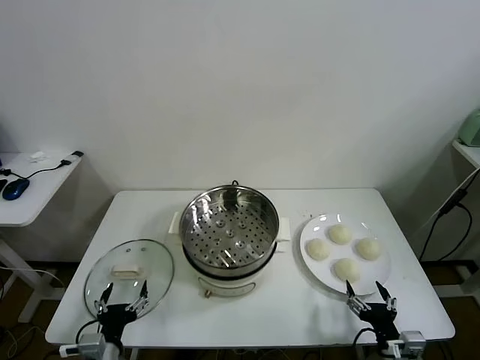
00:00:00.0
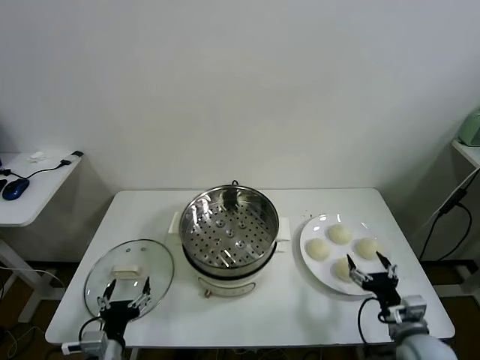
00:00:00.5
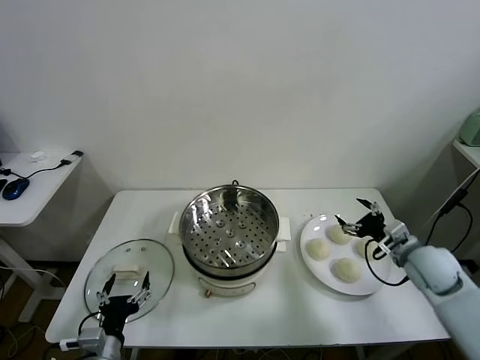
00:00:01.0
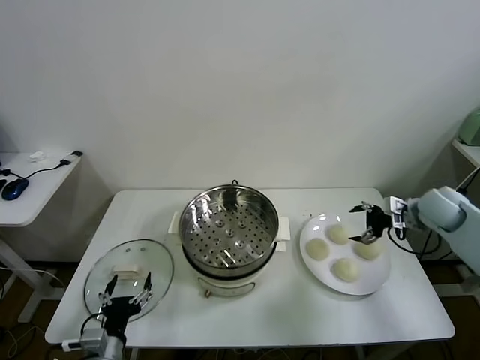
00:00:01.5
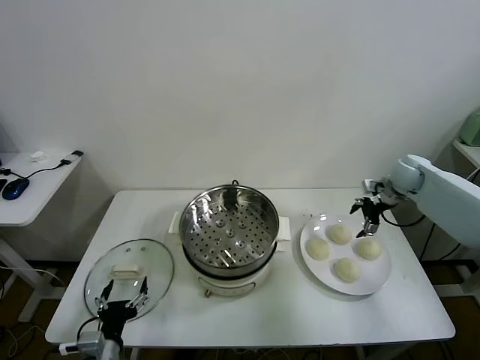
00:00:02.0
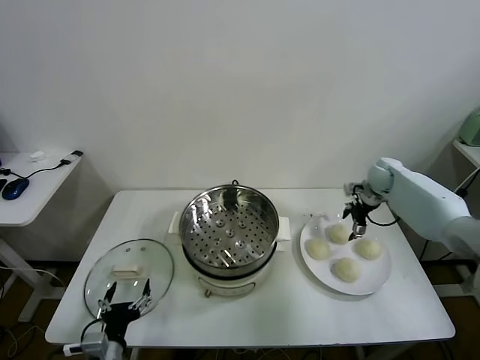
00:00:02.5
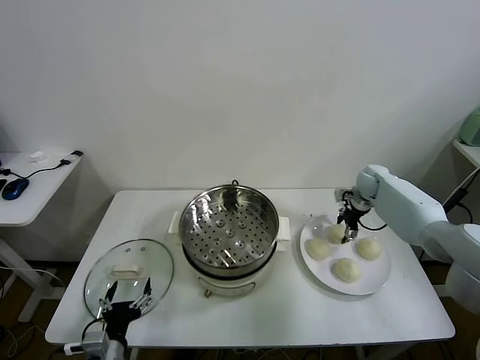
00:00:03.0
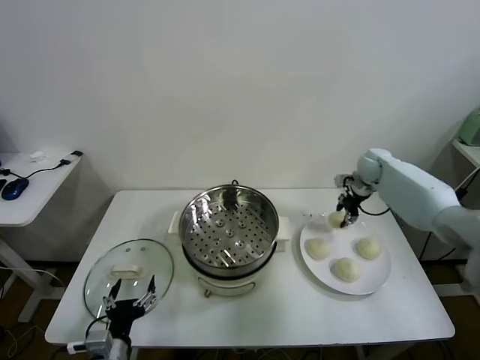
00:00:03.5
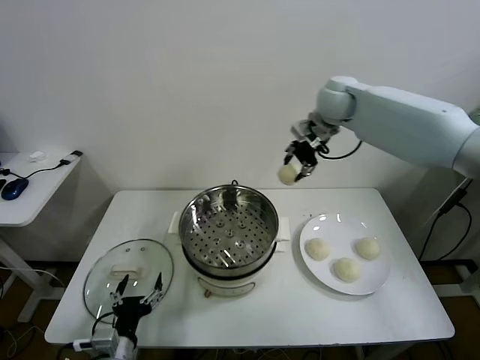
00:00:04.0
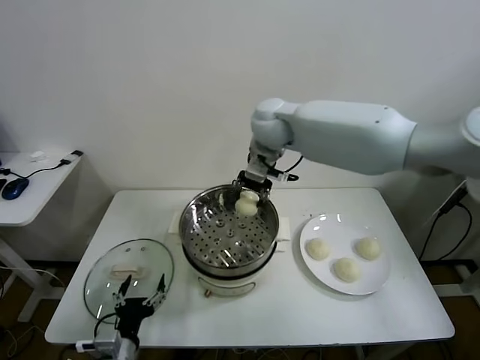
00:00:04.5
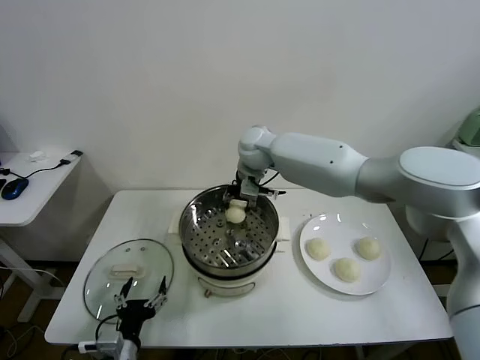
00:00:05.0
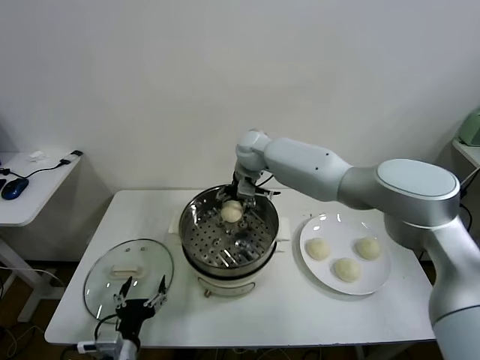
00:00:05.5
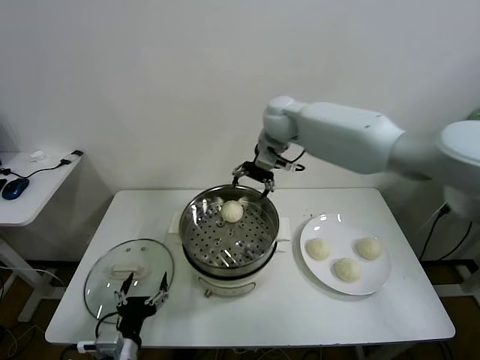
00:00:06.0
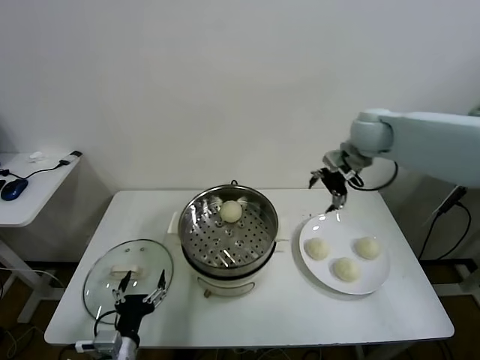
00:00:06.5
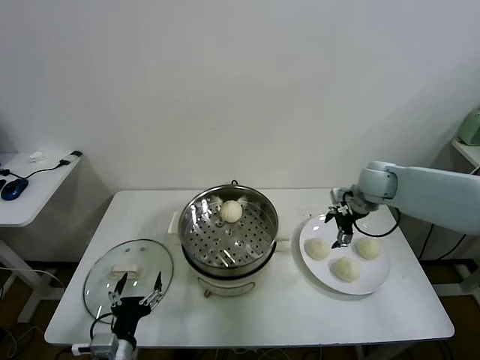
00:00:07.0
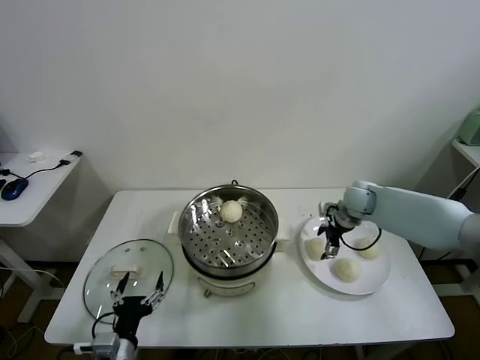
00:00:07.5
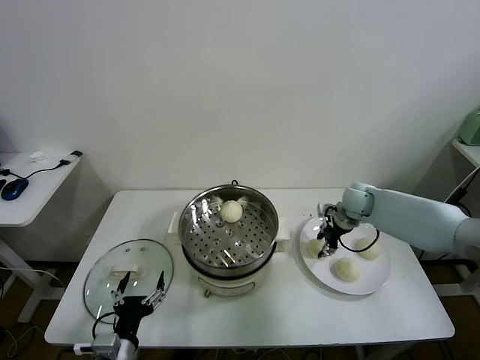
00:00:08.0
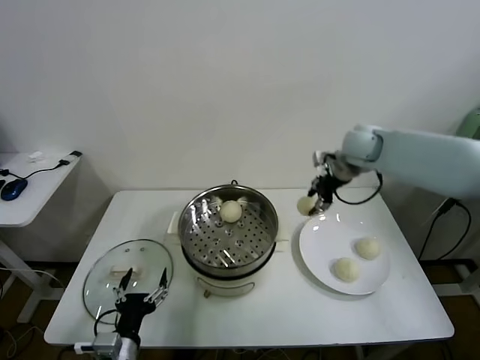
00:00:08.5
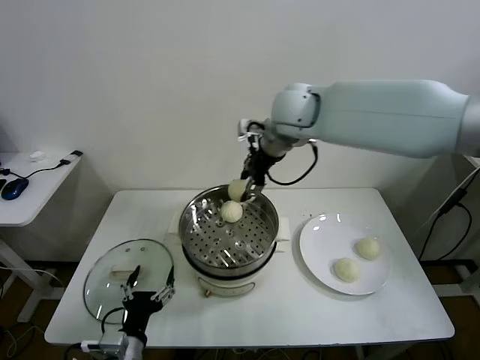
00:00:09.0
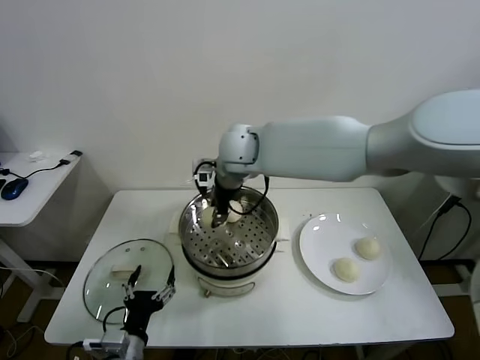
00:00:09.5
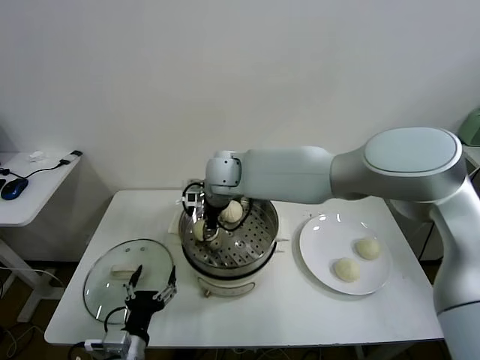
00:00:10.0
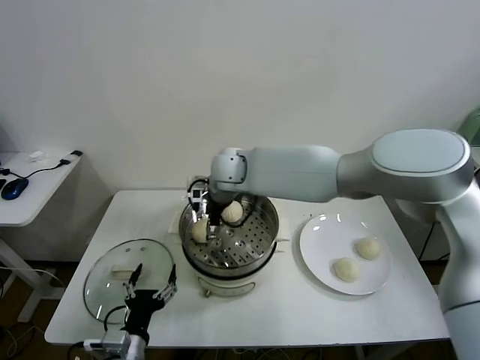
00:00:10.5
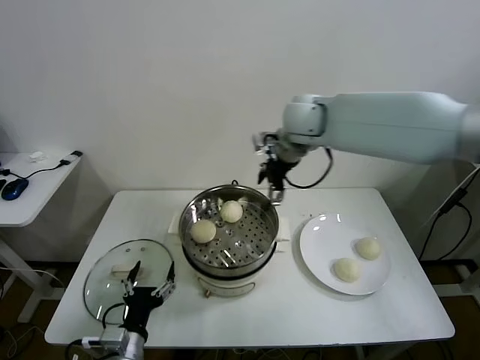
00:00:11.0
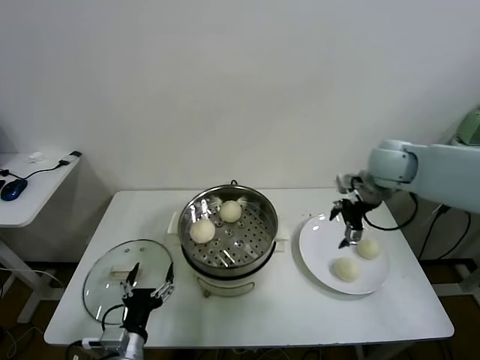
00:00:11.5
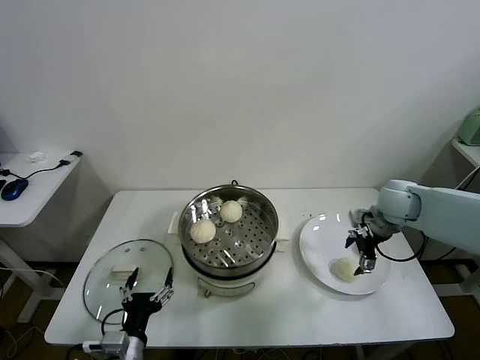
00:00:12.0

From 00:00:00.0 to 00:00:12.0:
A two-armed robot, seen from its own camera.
Task of the whole recording: take steamed baozi put them in steamer.
Step, from 00:00:00.0 to 00:00:02.5: Grasp the baozi in the plate with right gripper.
Step, from 00:00:03.5 to 00:00:05.5: Place the baozi on the steamer with right gripper.
Step, from 00:00:06.0 to 00:00:07.5: Grasp the baozi in the plate with right gripper.
Step, from 00:00:08.0 to 00:00:10.0: Place the baozi on the steamer with right gripper.
From 00:00:02.0 to 00:00:04.0: The right gripper moves to the left and upward, roughly 35 cm, and closes.
From 00:00:04.0 to 00:00:06.0: The right gripper travels downward and back again, roughly 15 cm each way, and opens.
From 00:00:06.0 to 00:00:08.0: The right gripper heads downward and to the right, covering roughly 25 cm, and closes up.
From 00:00:08.0 to 00:00:10.0: The right gripper heads to the left, covering approximately 35 cm.
From 00:00:10.0 to 00:00:12.0: The right gripper travels to the right by about 40 cm, and opens up.

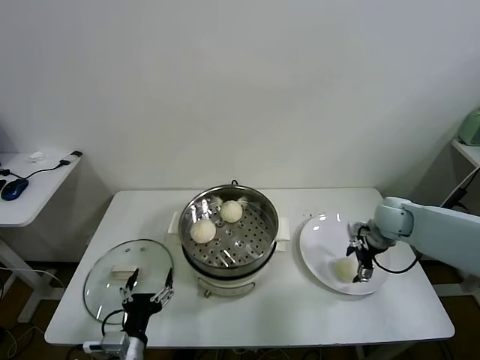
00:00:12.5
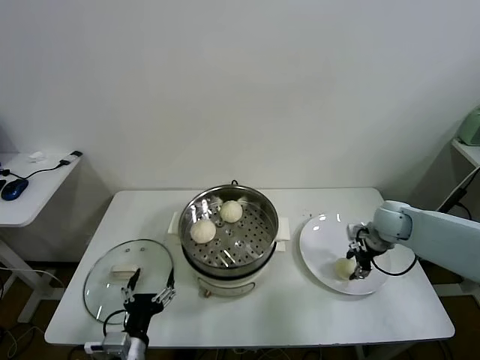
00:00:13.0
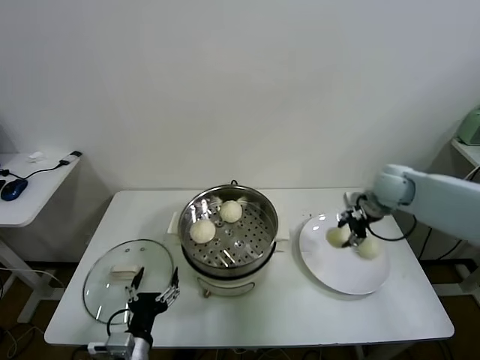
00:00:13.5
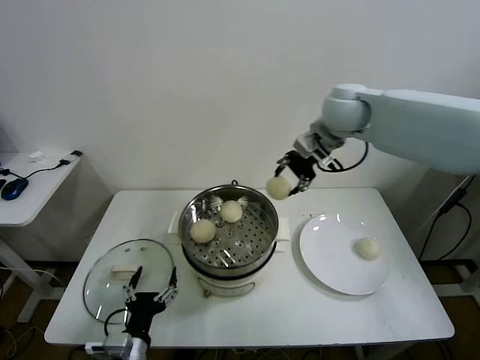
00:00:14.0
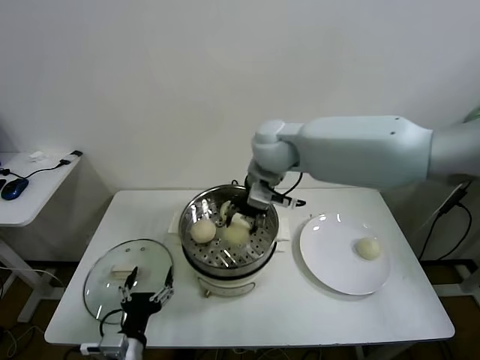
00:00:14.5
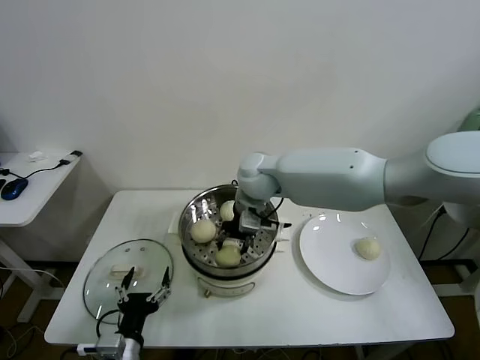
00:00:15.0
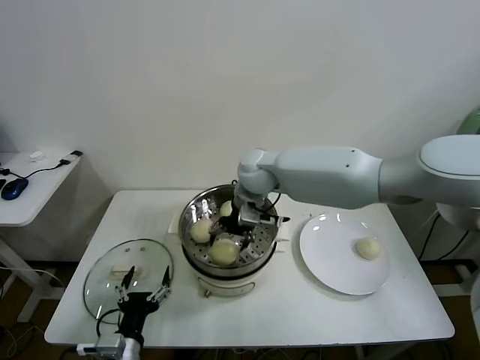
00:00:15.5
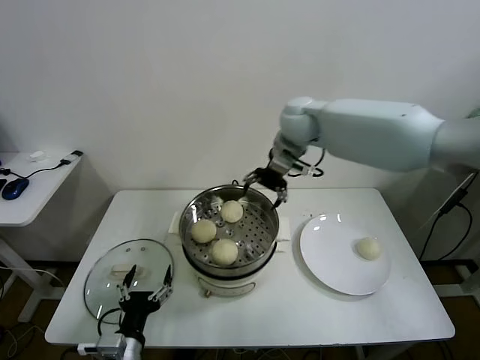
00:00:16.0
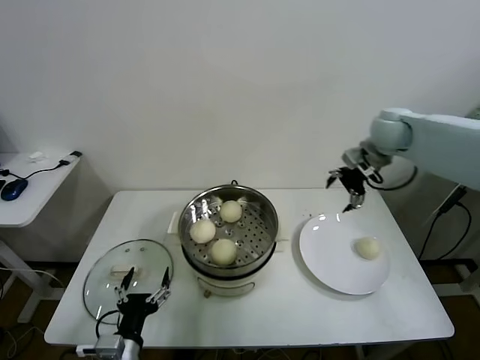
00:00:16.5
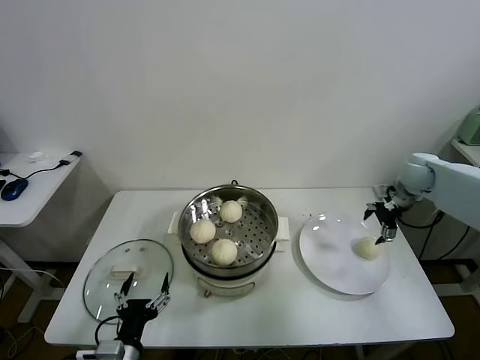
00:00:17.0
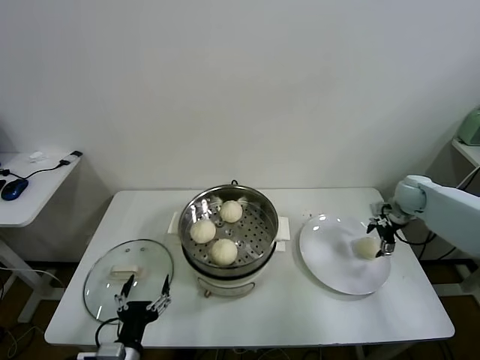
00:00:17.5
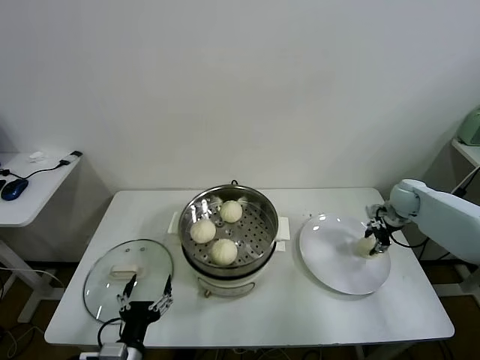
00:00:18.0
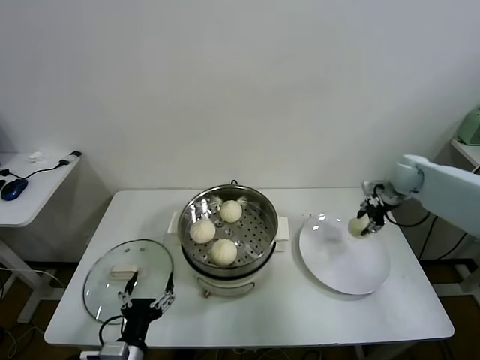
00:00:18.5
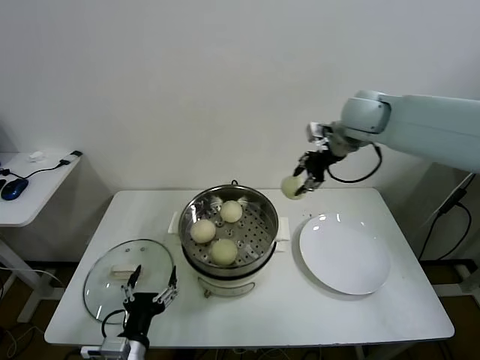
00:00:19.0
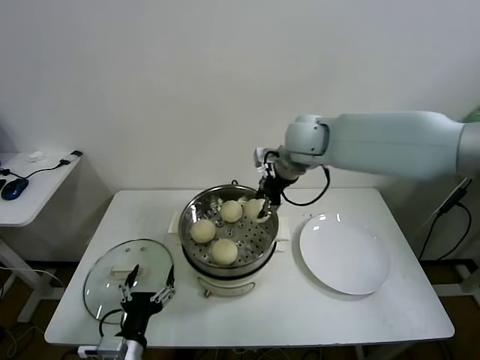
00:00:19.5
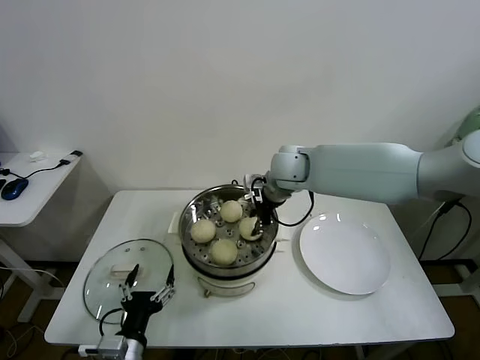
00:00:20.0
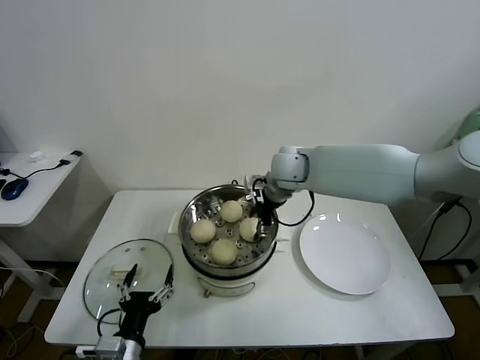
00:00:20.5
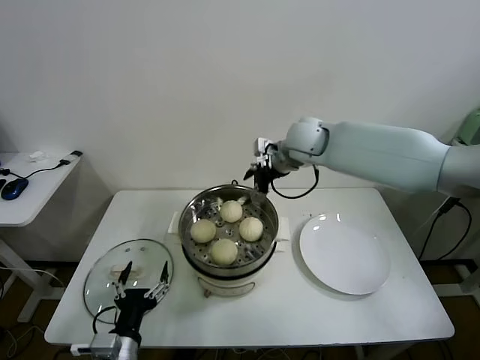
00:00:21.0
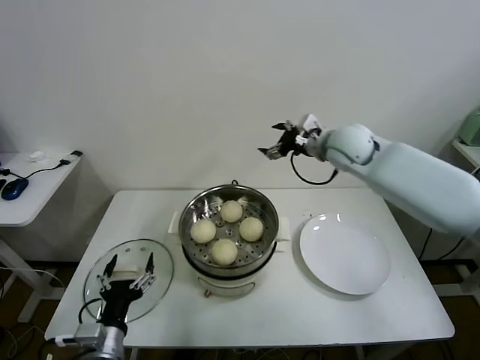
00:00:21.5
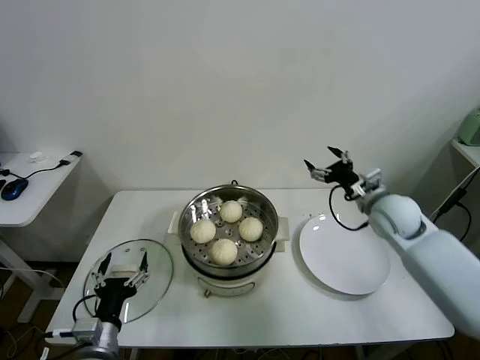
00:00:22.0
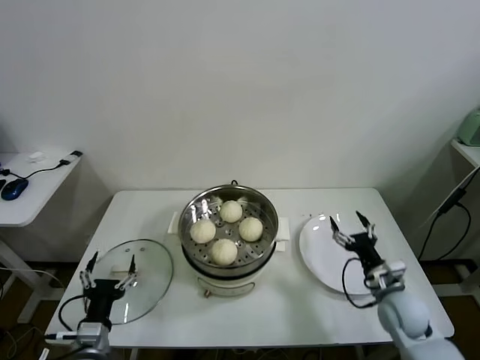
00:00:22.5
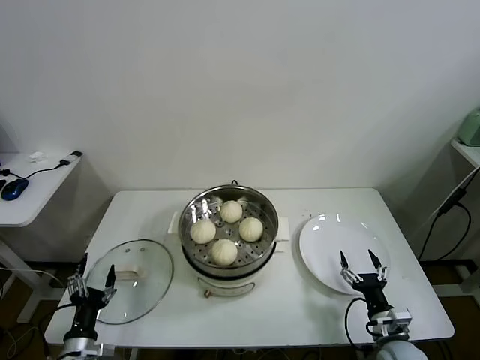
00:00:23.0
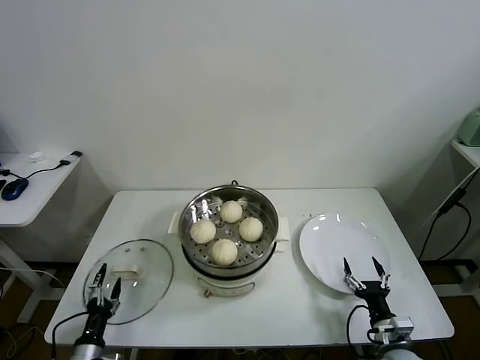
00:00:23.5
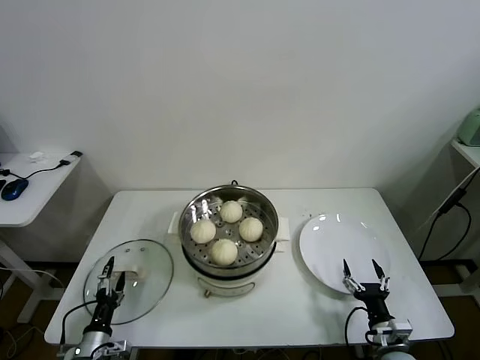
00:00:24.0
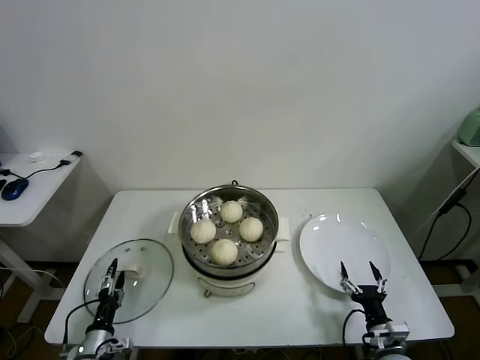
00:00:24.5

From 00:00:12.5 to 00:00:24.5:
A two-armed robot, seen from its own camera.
Task of the whole recording: take steamed baozi put them in steamer.
Step, from 00:00:13.0 to 00:00:15.5: Place the baozi on the steamer with right gripper.
Step, from 00:00:16.0 to 00:00:17.5: Grasp the baozi in the plate with right gripper.
Step, from 00:00:18.0 to 00:00:20.5: Place the baozi on the steamer with right gripper.
From 00:00:12.5 to 00:00:14.5: The right gripper is displaced to the left and upward by about 35 cm, and closes.
From 00:00:14.5 to 00:00:16.5: The right gripper goes some 30 cm to the right, and opens up.
From 00:00:16.5 to 00:00:18.5: The right gripper moves downward, about 10 cm, and closes its fingers.
From 00:00:18.5 to 00:00:20.5: The right gripper moves to the left, approximately 30 cm, and opens up.
From 00:00:20.5 to 00:00:22.5: The right gripper travels downward, to the right and backward by roughly 40 cm. The left gripper heads to the left, covering some 5 cm.
From 00:00:22.5 to 00:00:24.5: The right gripper shifts about 15 cm backward and downward; the left gripper shifts about 15 cm downward and to the left.

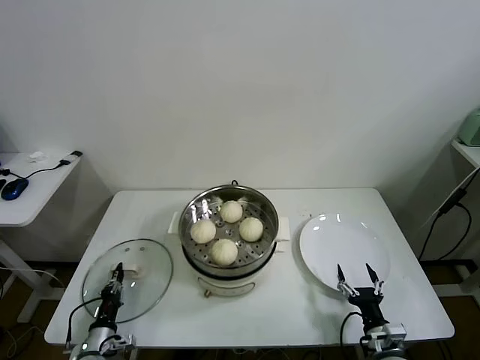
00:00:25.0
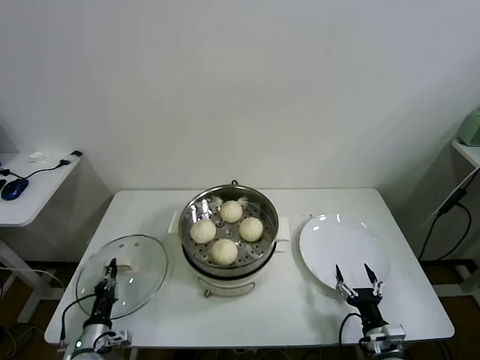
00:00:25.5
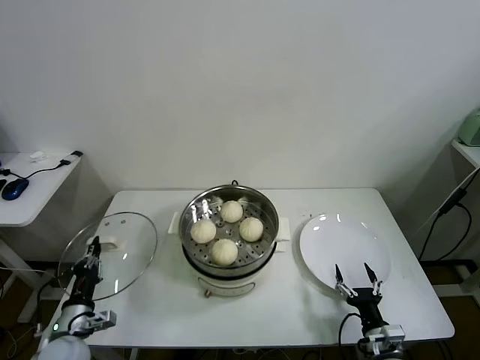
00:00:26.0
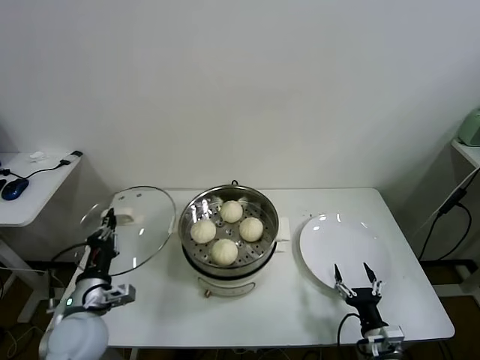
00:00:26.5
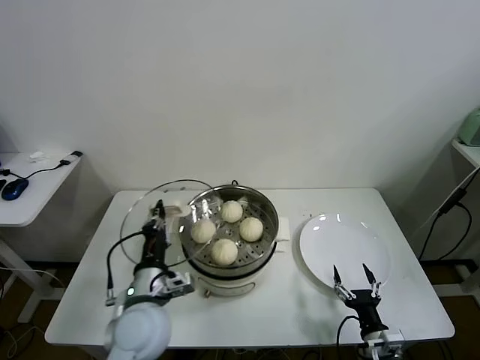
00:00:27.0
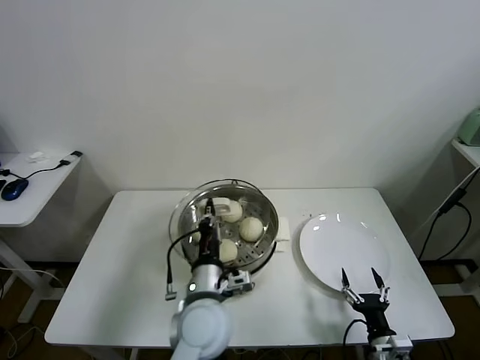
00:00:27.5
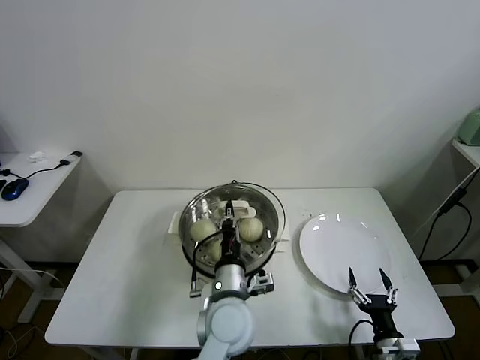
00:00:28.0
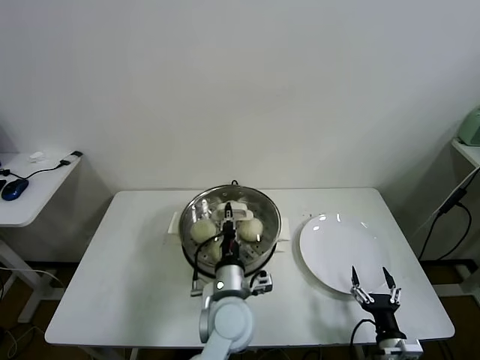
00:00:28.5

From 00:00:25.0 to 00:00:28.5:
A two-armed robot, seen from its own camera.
Task of the whole recording: take steamed baozi put them in steamer.
From 00:00:25.0 to 00:00:27.0: The left gripper travels upward and to the right by about 30 cm.
From 00:00:27.0 to 00:00:28.5: The left gripper shifts some 15 cm to the right.
